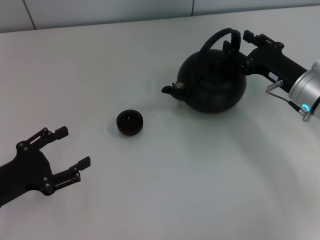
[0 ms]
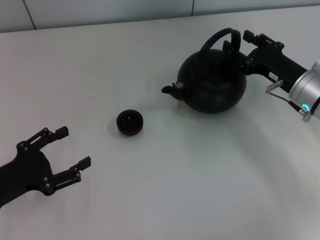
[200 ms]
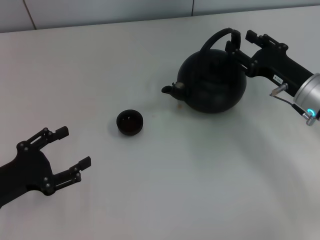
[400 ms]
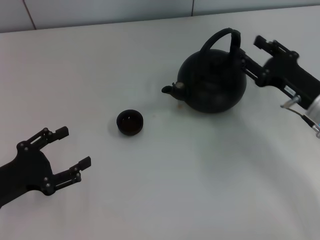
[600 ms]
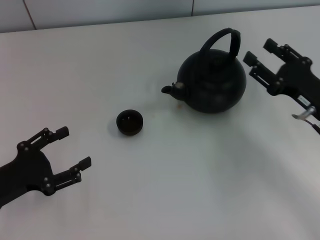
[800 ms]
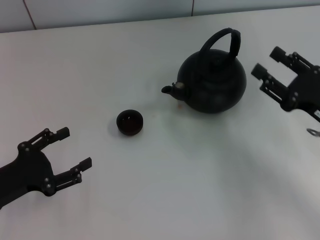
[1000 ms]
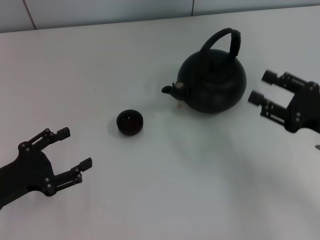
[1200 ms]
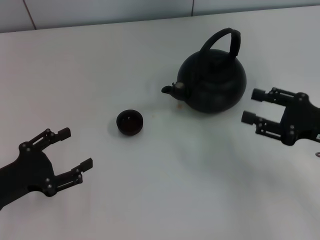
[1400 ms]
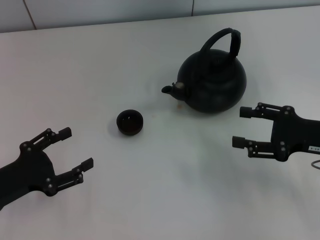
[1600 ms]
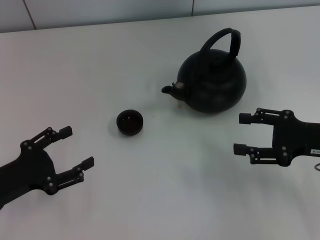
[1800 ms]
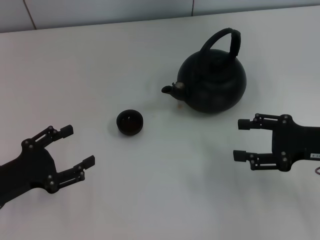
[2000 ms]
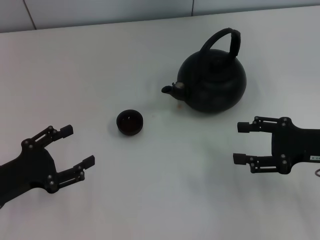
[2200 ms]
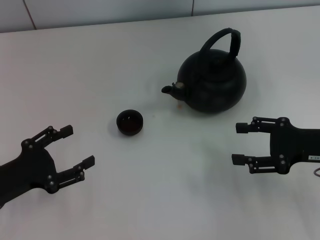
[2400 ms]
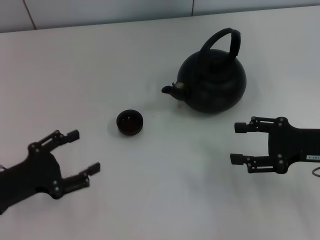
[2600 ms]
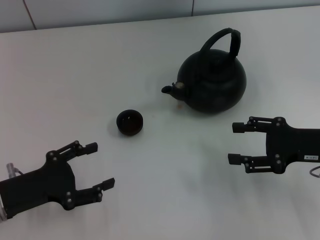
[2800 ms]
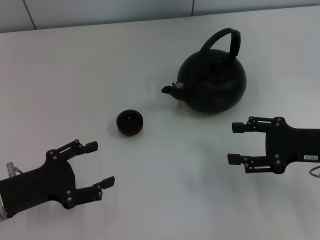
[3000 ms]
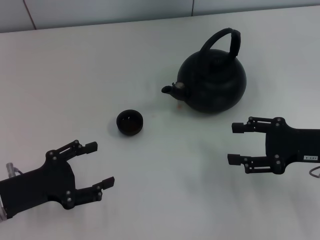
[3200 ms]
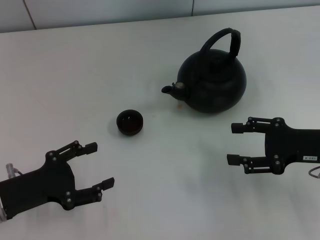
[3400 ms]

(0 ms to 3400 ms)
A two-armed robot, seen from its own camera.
Task of the whole recording: Grasp the handle of the teapot with one hand and pour tea into the teacup.
0 ms - 1600 ms: The right gripper goes about 10 cm backward.
1600 ms - 3400 ms: The grippers make only small movements.

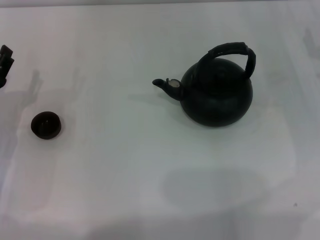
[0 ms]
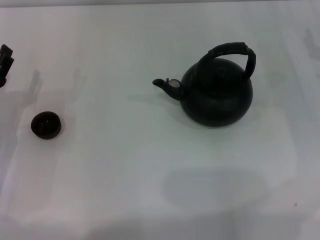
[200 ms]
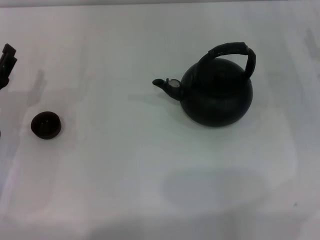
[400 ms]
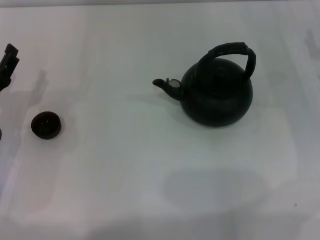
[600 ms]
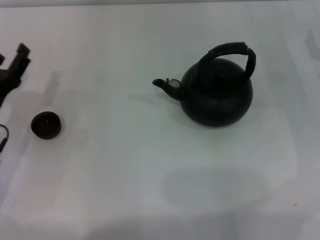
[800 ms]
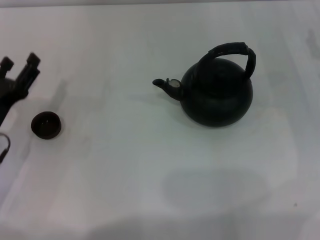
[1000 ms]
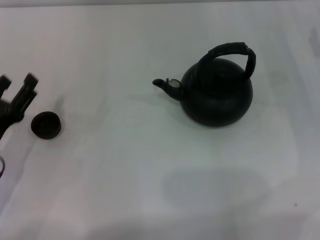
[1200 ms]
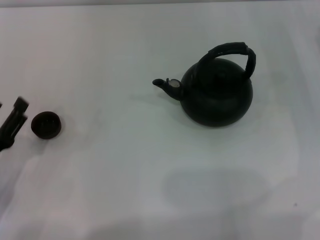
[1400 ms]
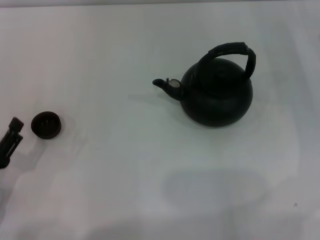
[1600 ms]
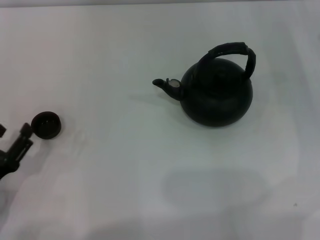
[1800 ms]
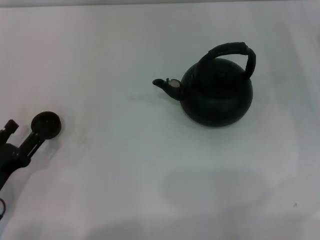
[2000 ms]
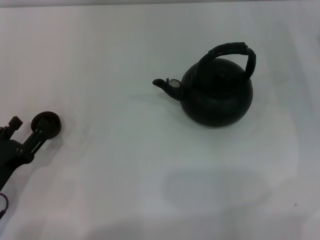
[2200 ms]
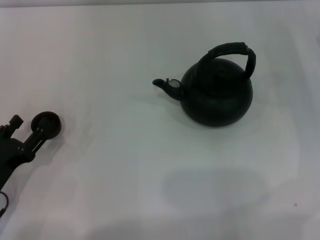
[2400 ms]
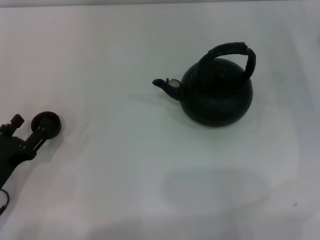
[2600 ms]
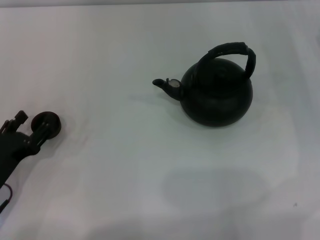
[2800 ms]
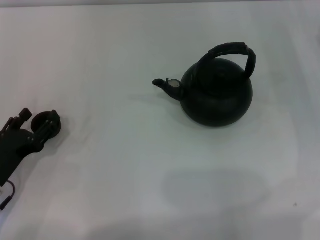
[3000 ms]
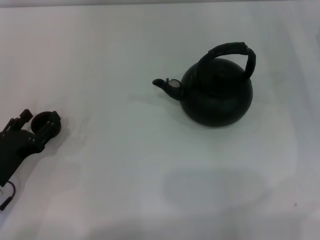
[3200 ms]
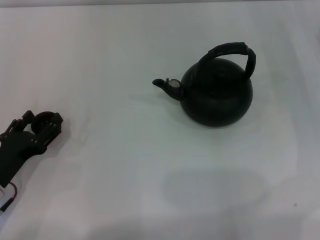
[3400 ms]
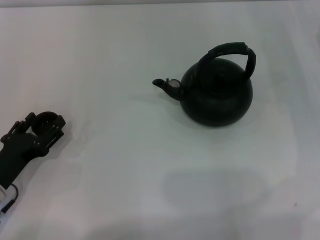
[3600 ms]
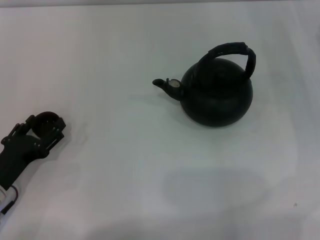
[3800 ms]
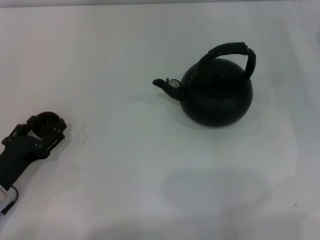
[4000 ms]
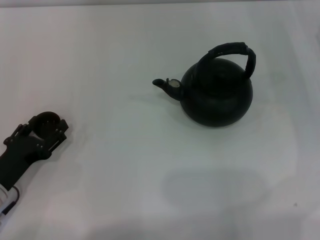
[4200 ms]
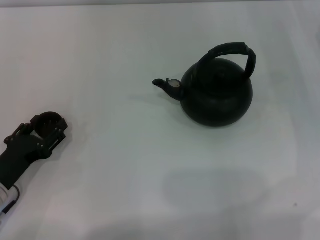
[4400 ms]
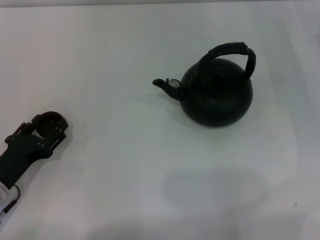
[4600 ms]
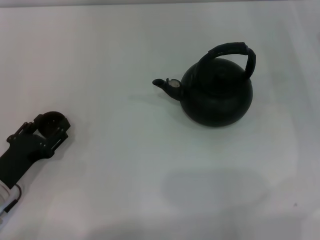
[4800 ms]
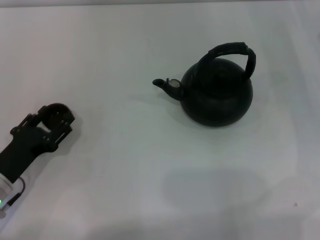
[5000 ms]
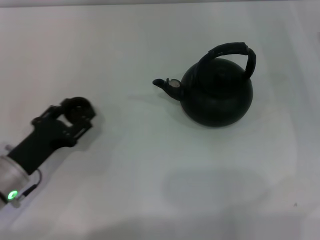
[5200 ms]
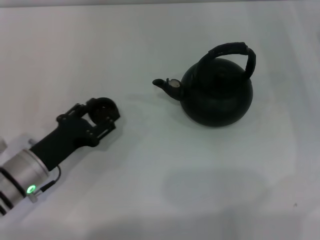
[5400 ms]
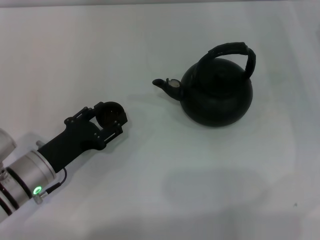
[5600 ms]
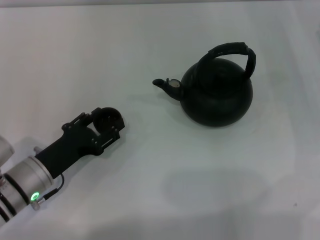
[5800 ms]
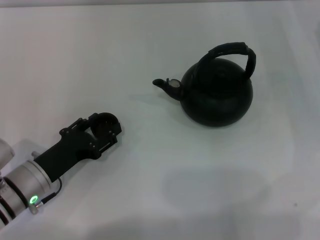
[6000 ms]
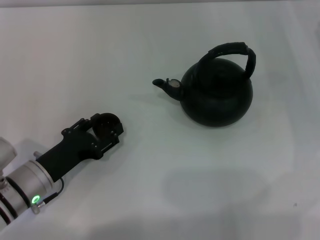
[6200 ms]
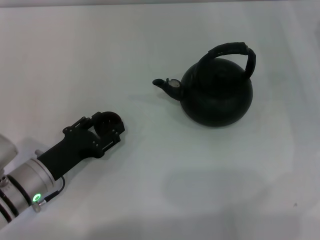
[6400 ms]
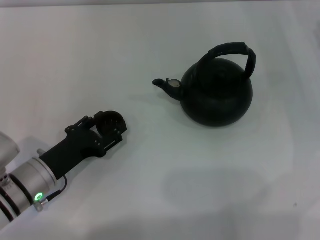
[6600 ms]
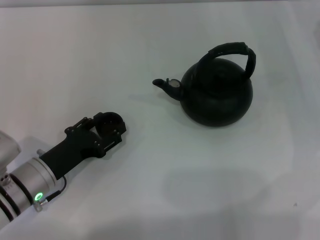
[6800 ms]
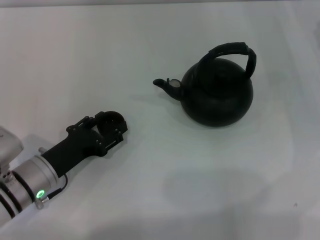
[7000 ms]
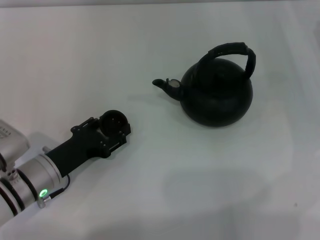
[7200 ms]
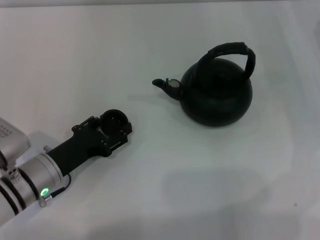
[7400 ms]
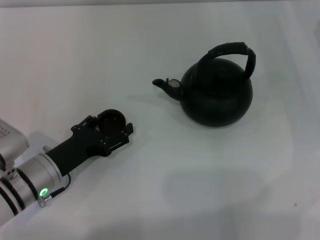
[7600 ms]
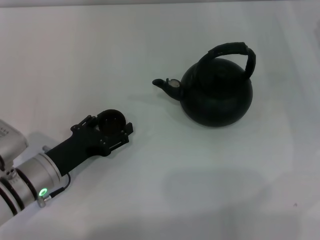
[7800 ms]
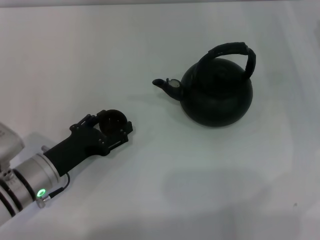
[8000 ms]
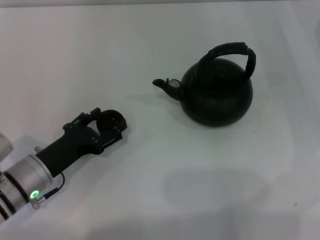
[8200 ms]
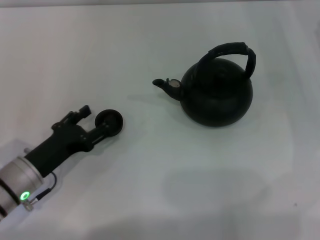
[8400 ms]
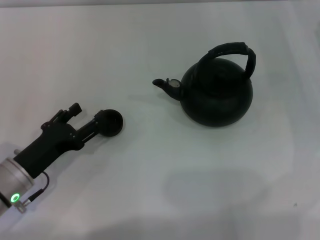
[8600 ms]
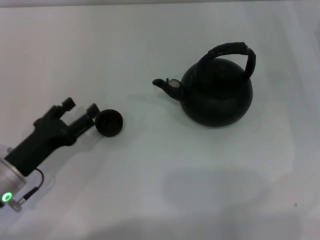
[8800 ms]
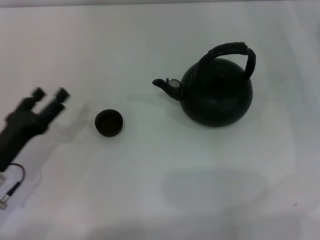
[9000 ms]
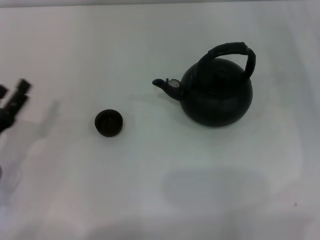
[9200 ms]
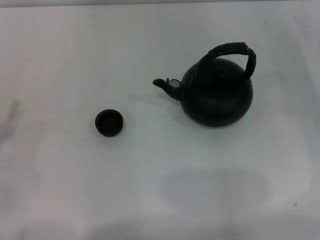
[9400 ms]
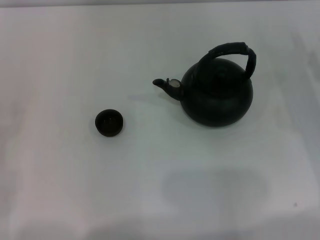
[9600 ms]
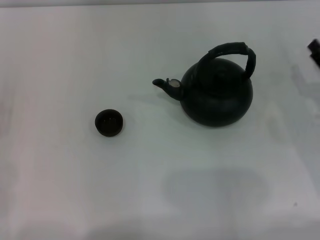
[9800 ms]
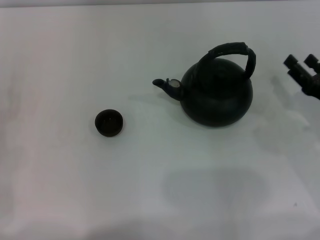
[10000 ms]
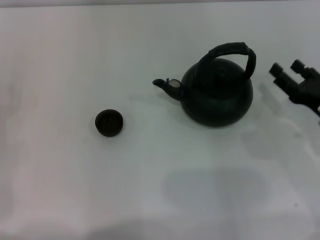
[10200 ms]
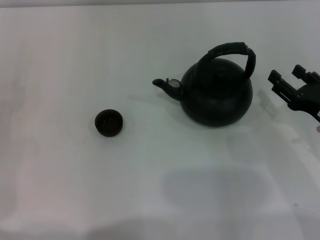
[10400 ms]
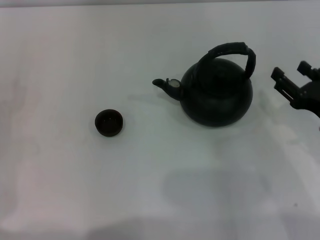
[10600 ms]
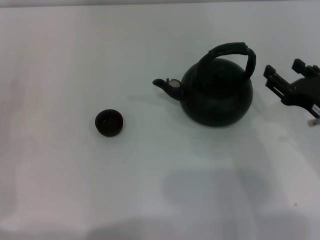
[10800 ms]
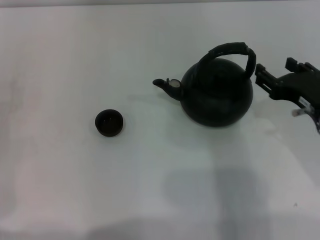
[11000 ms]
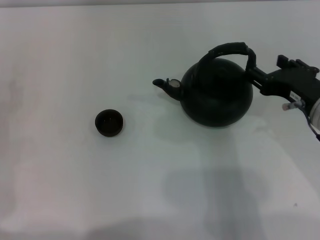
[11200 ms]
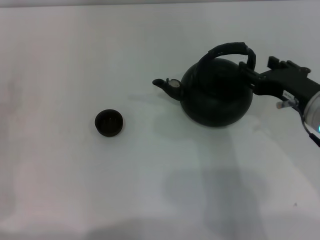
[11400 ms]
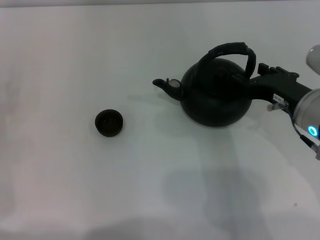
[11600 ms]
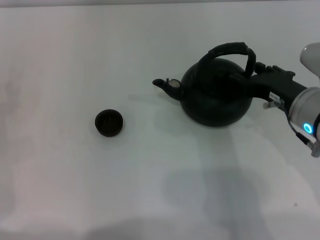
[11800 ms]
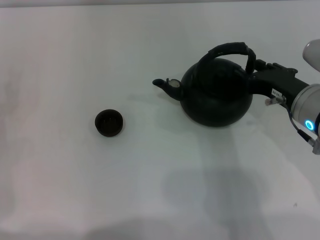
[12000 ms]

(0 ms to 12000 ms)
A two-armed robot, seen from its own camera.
Task of the whole recording: Grasp the handle of the teapot with one hand and pour tea into the teacup.
Step, 0 ms - 5000 ms: Pick up the teacup with the left gripper.
Step, 5200 ms - 8800 ms: Place the teacup in the center of view with the left gripper.
0 ms - 1600 ms: The left gripper goes roughly 10 cm backward.
1600 ms - 3000 ms: The left gripper changes place by about 5 cm.
3000 ms - 4400 ms: There are only small adjustments of the grippers.
4400 ms - 6000 ms: The left gripper goes some 5 cm to the right, and closes its fingers.
6000 ms - 7600 ms: The left gripper opens up.
7600 ms - 9000 ms: The left gripper travels to the left by approximately 5 cm, and opens its fingers.
9000 ms - 10400 ms: The right gripper goes approximately 15 cm backward and to the left. Meanwhile the left gripper is displaced to the left by approximately 10 cm.
10400 ms - 12000 ms: The right gripper moves to the left and upward, approximately 10 cm.

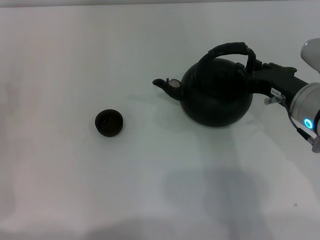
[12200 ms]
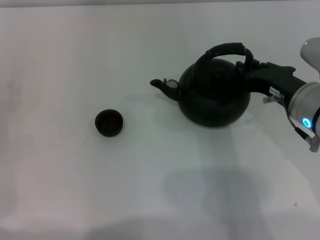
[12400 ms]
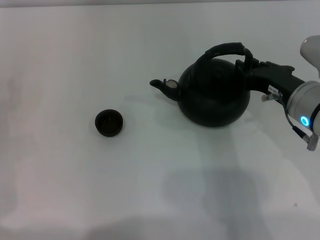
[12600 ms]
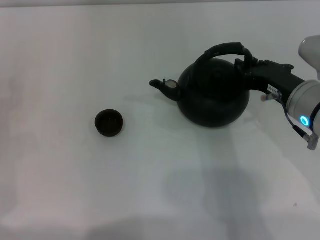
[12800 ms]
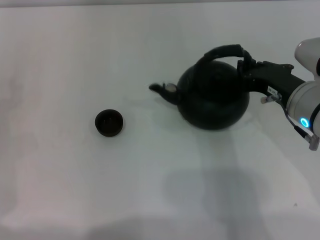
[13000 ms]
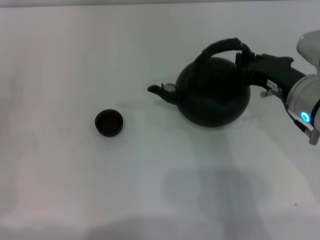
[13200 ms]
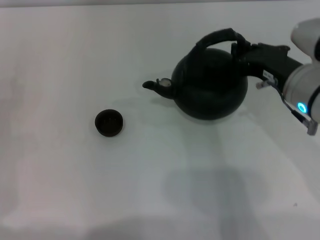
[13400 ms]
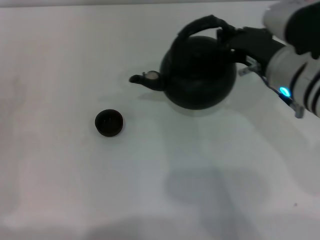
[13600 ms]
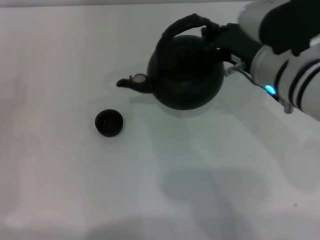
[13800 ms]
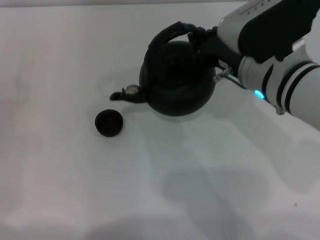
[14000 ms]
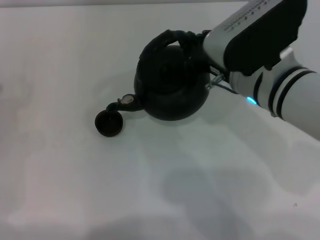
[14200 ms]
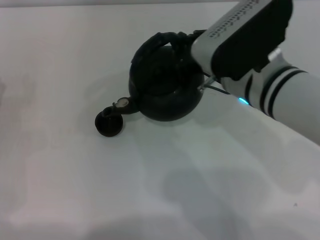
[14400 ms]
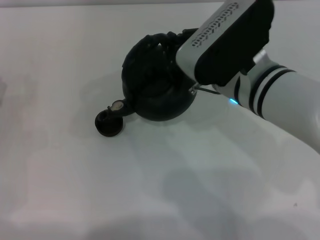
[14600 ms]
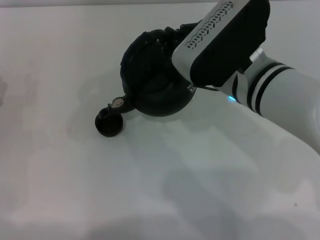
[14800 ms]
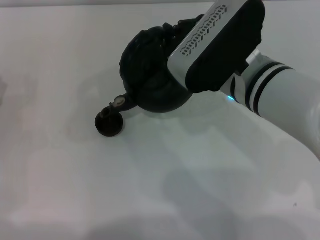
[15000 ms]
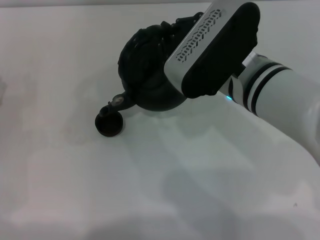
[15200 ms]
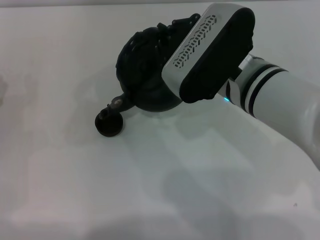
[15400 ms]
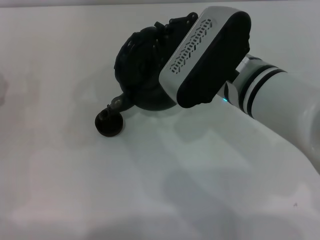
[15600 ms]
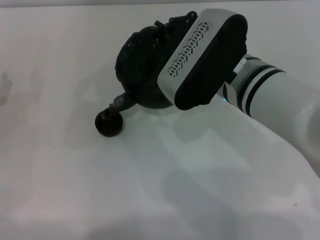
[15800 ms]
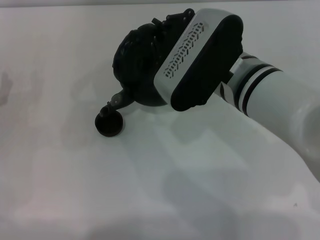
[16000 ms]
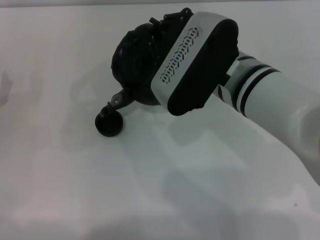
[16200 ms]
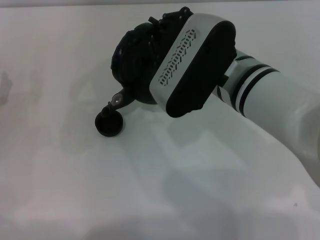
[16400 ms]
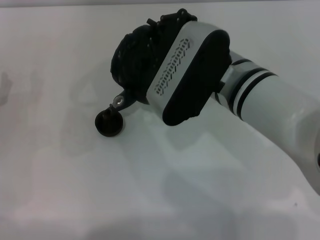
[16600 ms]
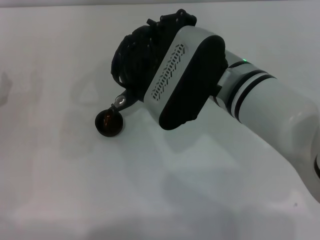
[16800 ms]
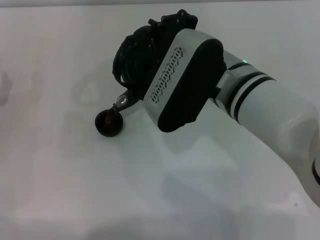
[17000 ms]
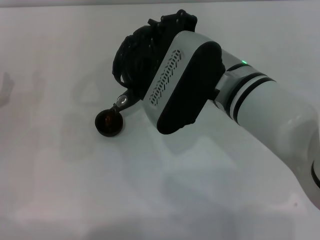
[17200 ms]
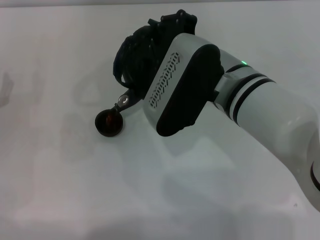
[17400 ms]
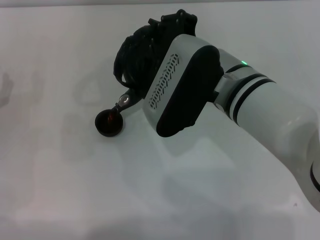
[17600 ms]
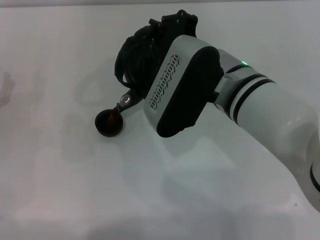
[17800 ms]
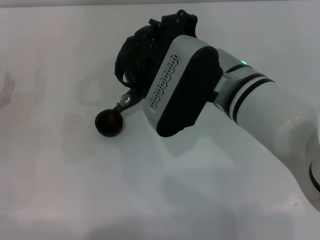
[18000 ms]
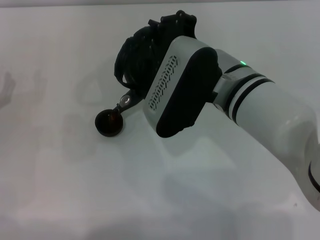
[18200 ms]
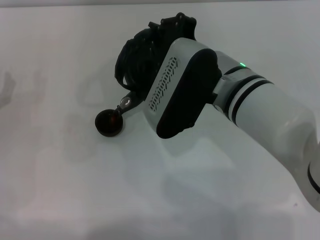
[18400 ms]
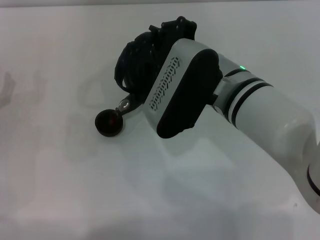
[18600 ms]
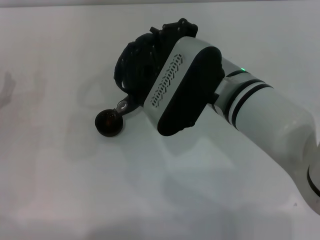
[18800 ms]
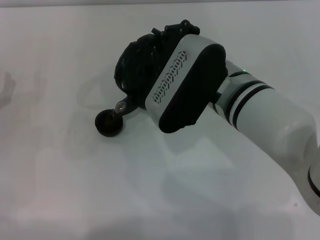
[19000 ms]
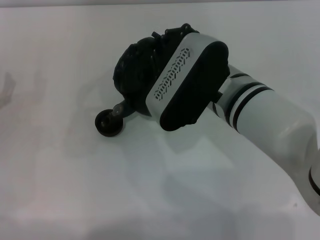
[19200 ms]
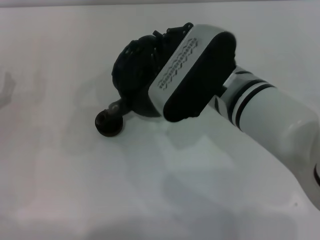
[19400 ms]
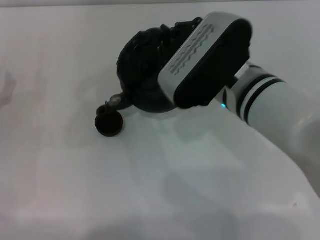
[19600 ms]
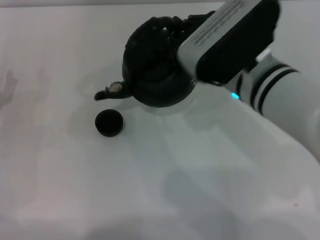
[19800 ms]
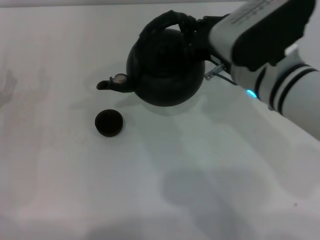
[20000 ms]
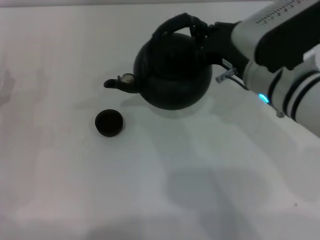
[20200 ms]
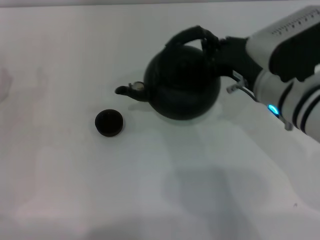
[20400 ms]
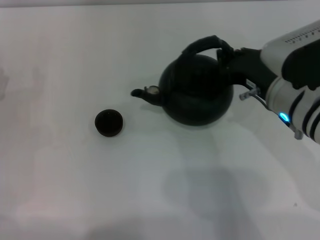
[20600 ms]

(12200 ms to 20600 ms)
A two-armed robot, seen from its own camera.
Task of the whole recording: Grasp the handle of the teapot with one hand and pour tea into the teacup.
Step, 13800 ms - 19600 ms: Pour tea into the teacup with the right gripper.
12200 ms - 13600 ms: The right gripper ends up roughly 5 cm from where it was, and closes its fingers.
13600 ms - 15000 ms: The right gripper shifts some 5 cm to the left.
15000 ms - 16400 ms: The grippers stay close to where they were, moving slightly.
16400 ms - 19200 ms: The grippers make only small movements.
19200 ms - 20600 ms: The right gripper heads to the right, covering about 10 cm.
